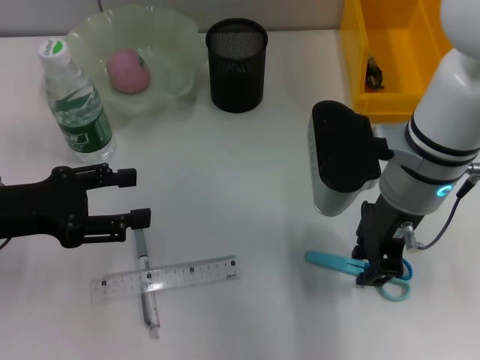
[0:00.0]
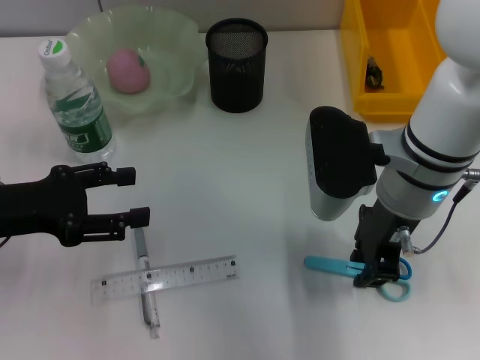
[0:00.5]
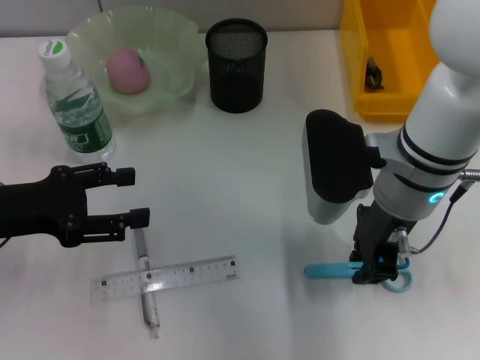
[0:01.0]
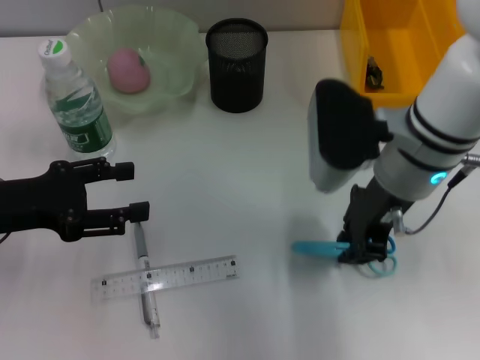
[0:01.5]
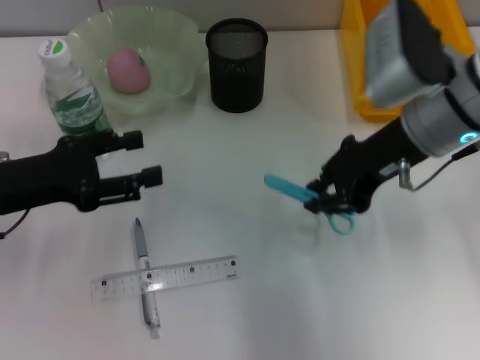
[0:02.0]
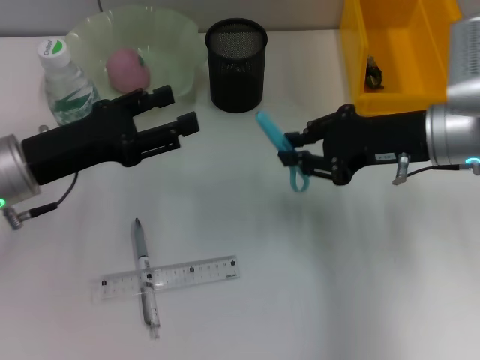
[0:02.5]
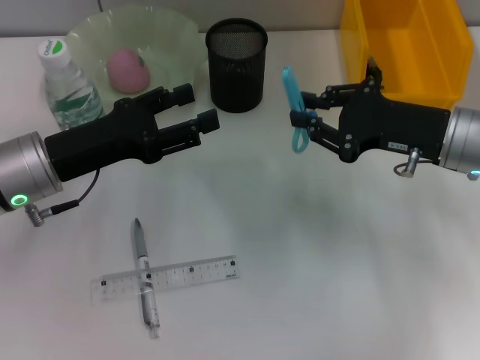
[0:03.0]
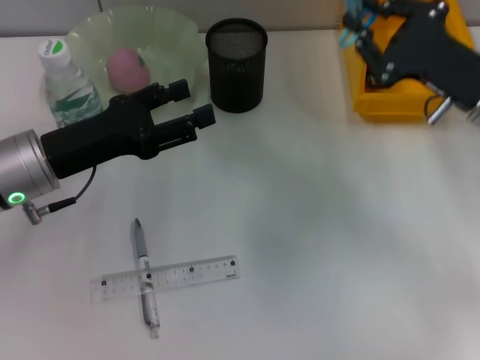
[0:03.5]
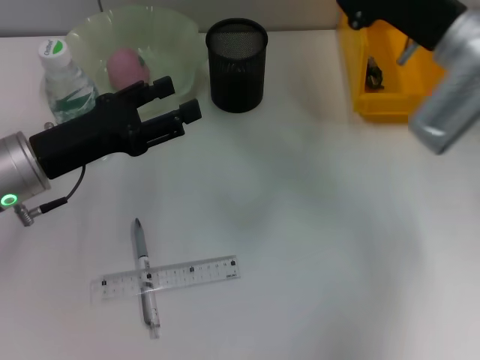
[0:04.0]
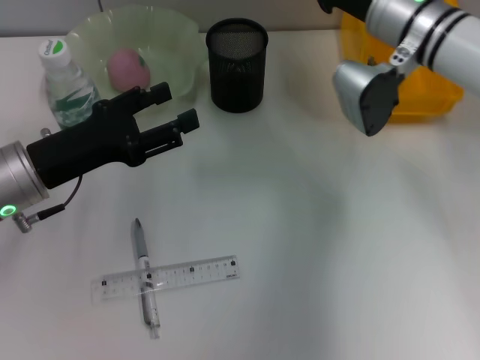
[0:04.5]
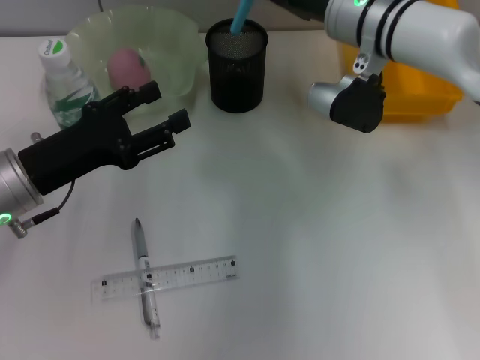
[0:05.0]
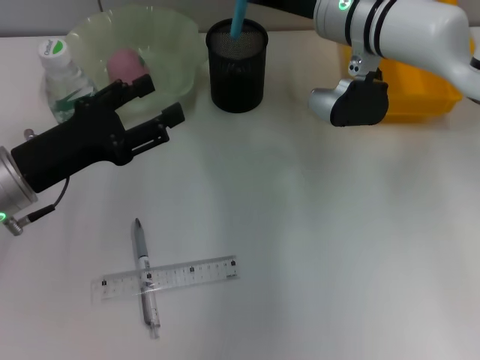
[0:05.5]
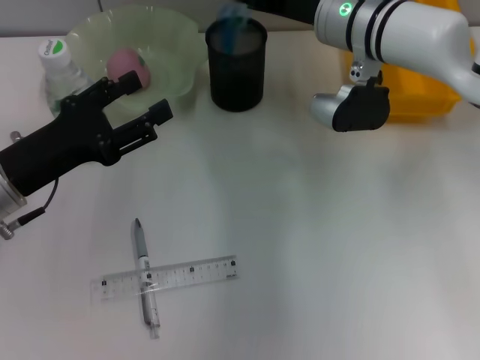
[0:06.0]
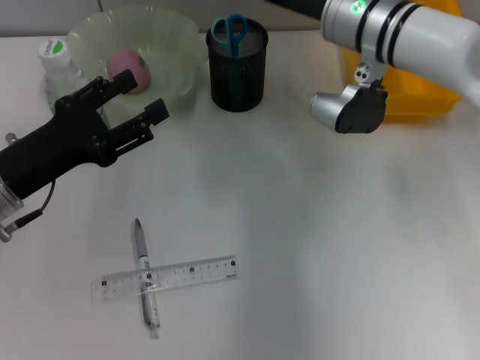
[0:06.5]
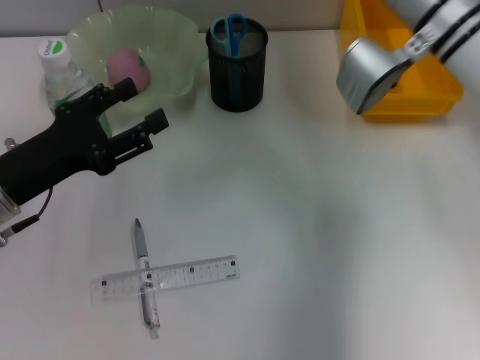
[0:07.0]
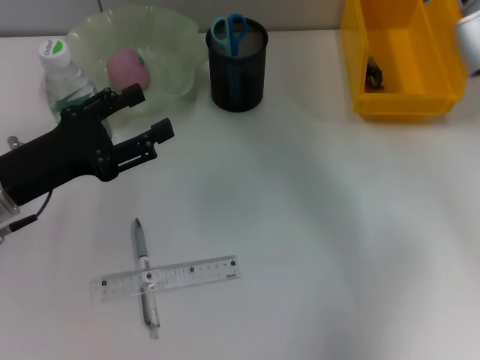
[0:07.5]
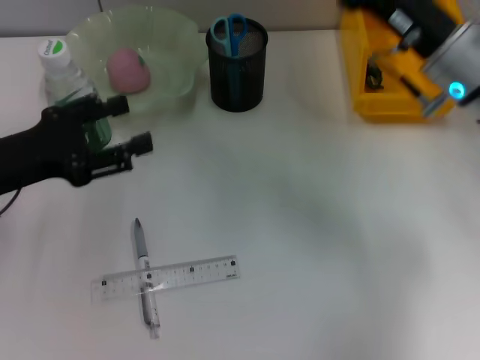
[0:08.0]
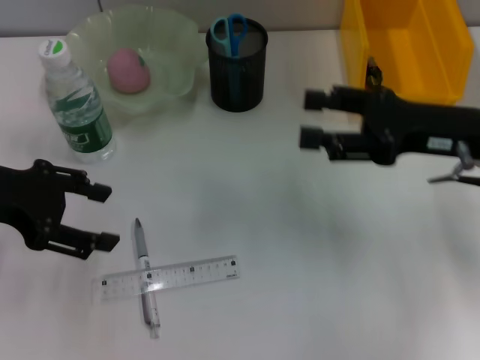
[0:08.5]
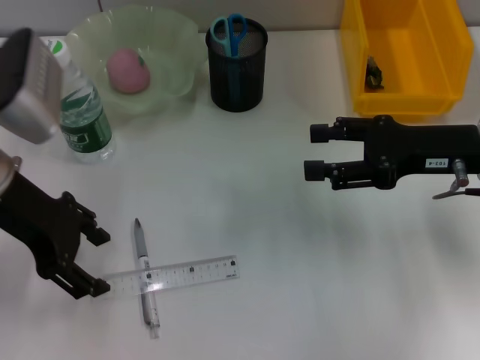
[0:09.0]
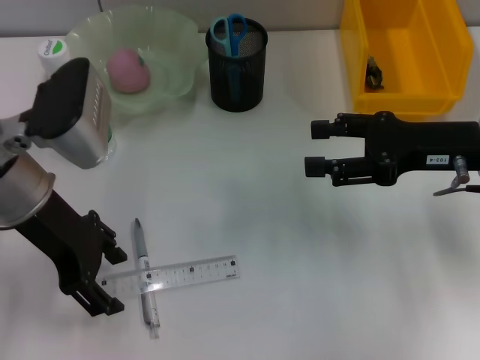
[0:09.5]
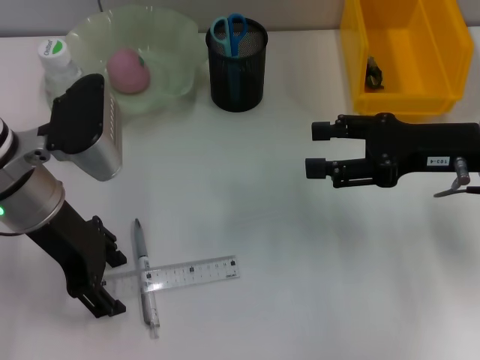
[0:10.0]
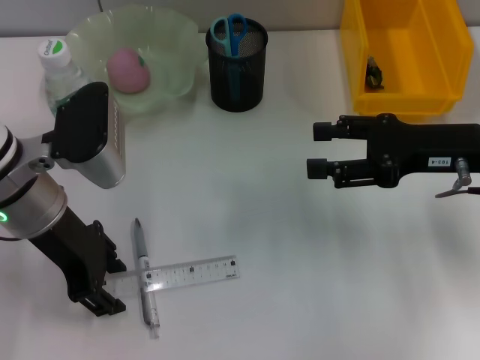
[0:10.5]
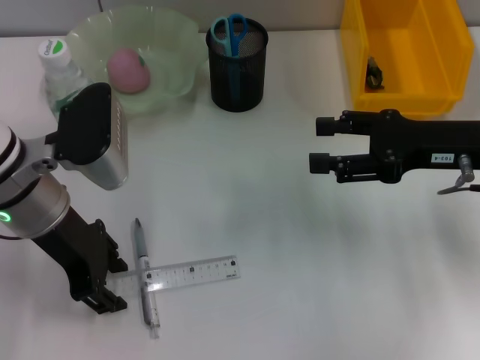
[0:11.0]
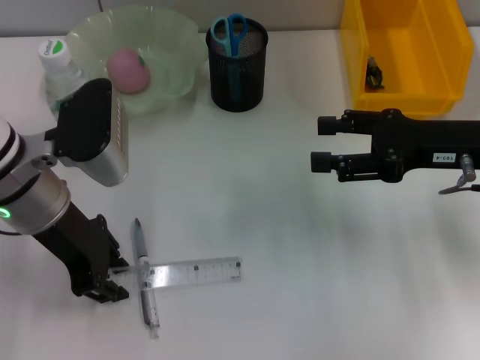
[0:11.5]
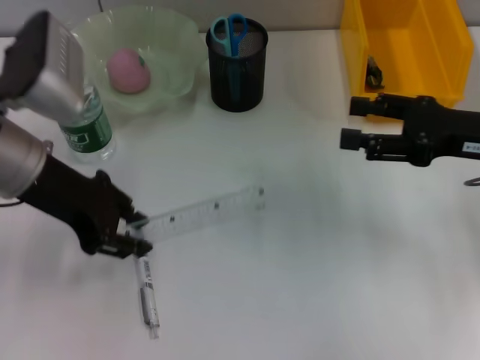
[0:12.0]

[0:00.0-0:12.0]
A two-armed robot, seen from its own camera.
Step, 1.5 to 6.0 s: Place the blue scissors into the pen holder with the right hand.
Step, 6.5 to 11.5 s: Grab the ruler with the left hand.
0.0 to 2.0 s: The right gripper ends up some 5 cm from where it was.
2.0 to 4.0 s: The right gripper shifts by about 5 cm. The left gripper ends up roughly 5 cm from where it was.
4.0 to 6.0 s: The right gripper is displaced to the left and forward by roughly 10 cm.
6.0 to 8.0 s: The right gripper heads backward and to the right, covering approximately 10 cm, and opens its fingers.
8.0 to 10.0 s: The left gripper heads to the right, covering approximately 10 cm. The right gripper shifts some 5 cm to the right.
10.0 to 12.0 s: The left gripper closes its fingers.

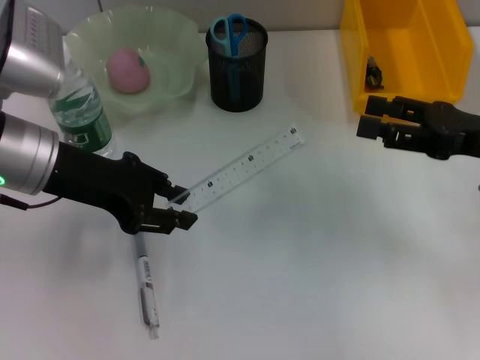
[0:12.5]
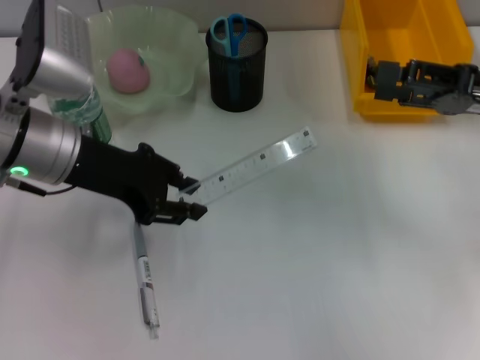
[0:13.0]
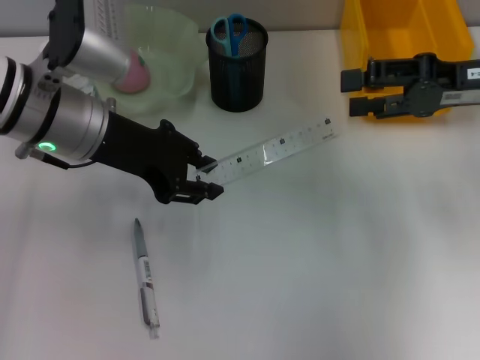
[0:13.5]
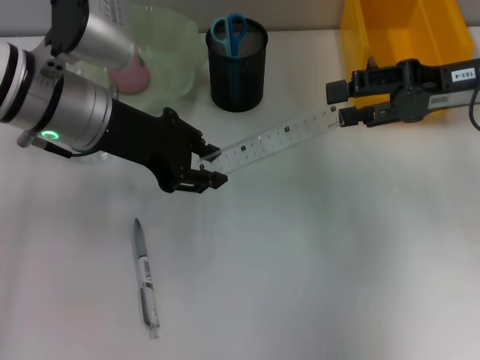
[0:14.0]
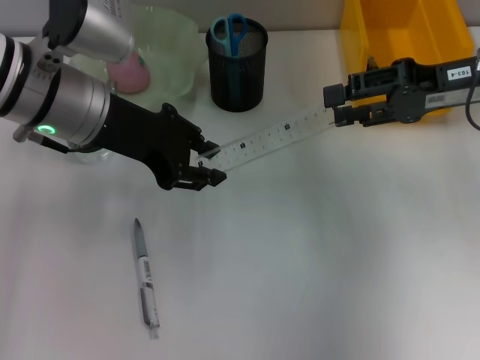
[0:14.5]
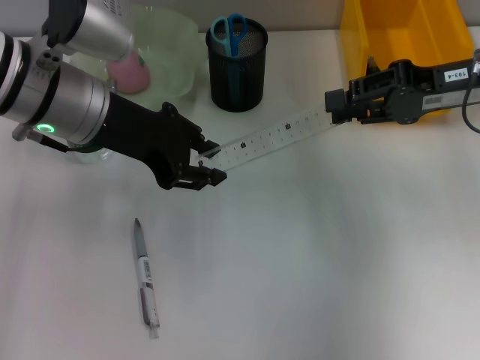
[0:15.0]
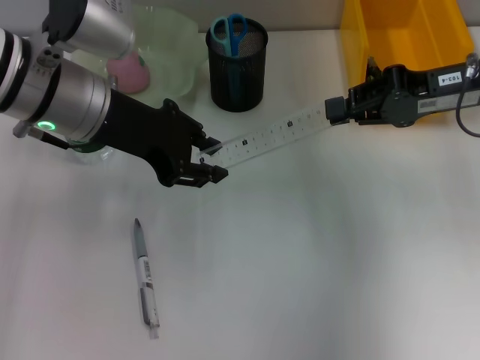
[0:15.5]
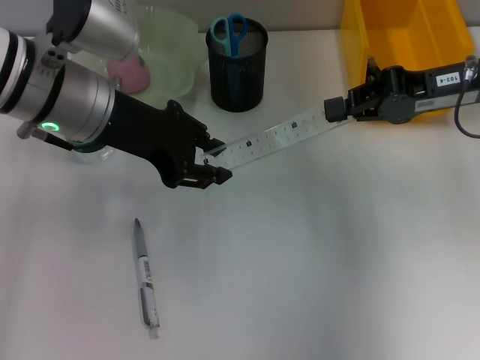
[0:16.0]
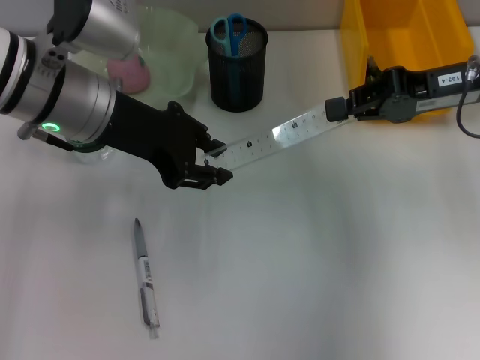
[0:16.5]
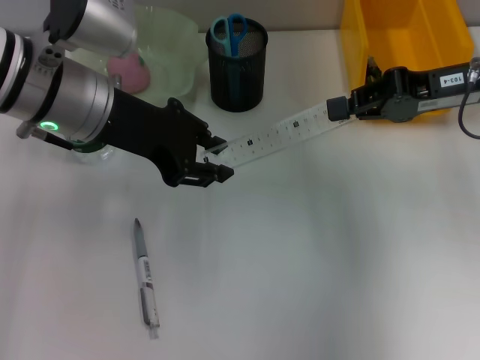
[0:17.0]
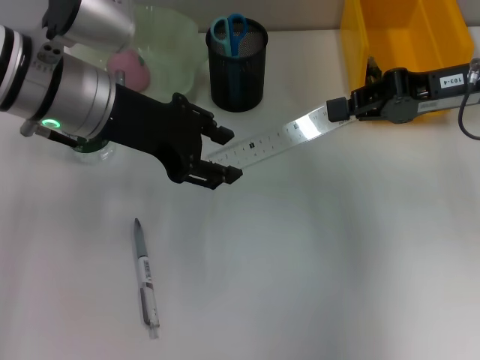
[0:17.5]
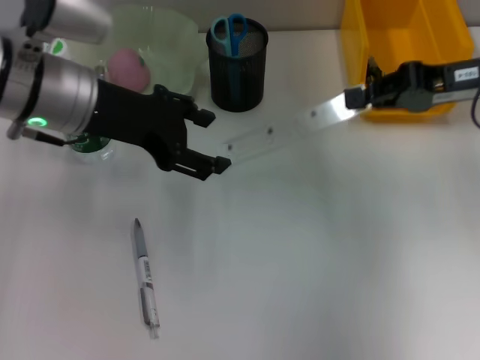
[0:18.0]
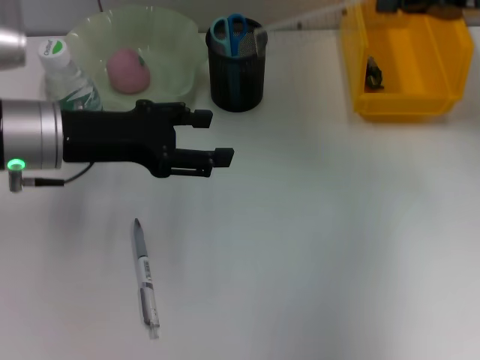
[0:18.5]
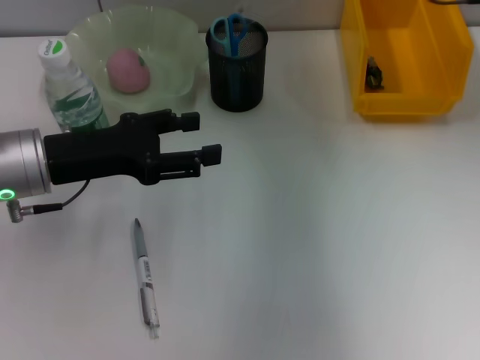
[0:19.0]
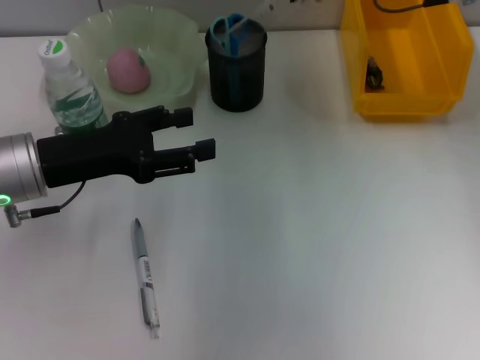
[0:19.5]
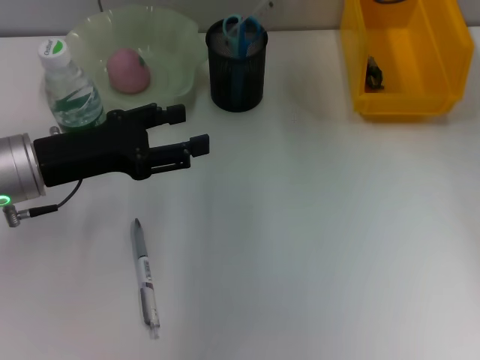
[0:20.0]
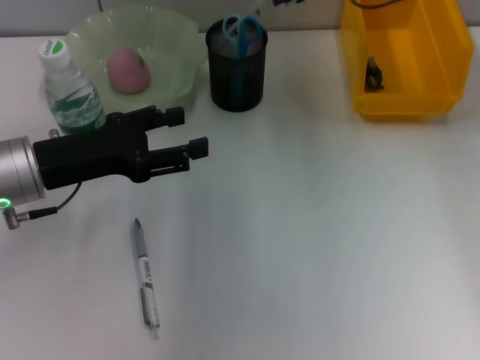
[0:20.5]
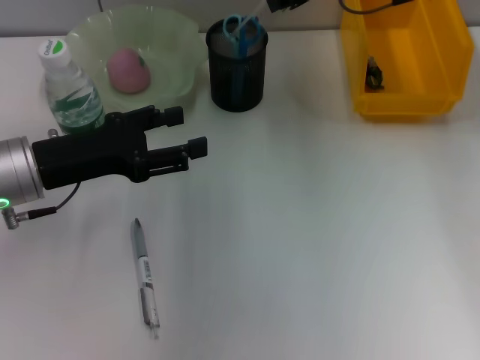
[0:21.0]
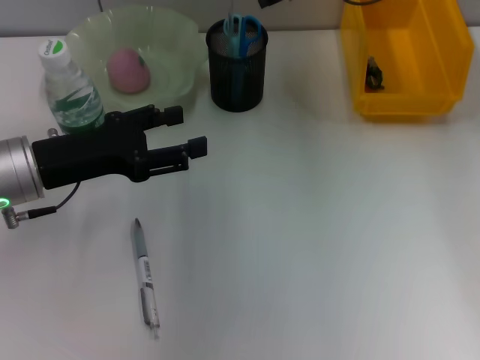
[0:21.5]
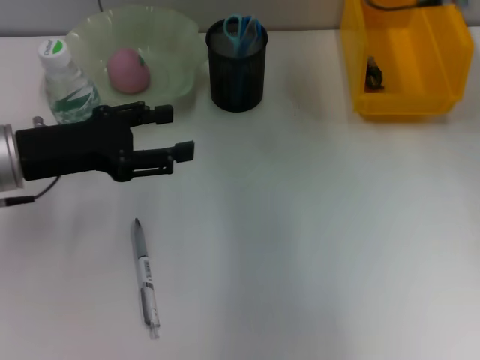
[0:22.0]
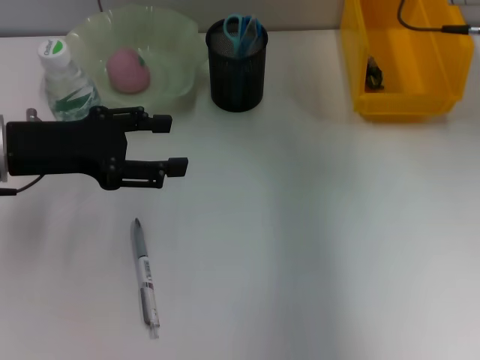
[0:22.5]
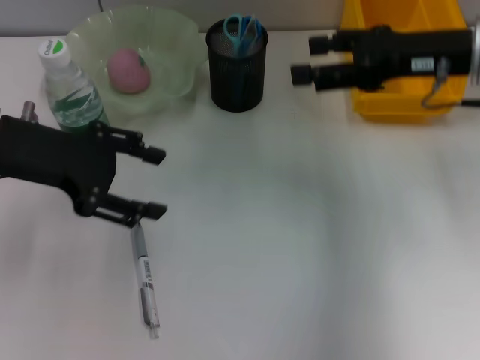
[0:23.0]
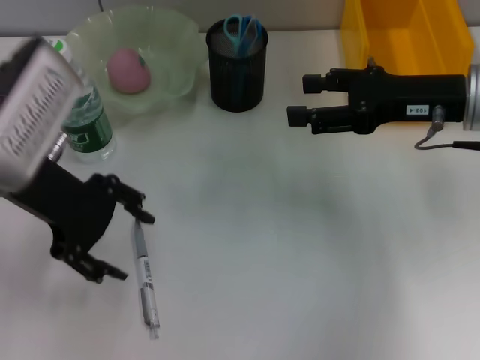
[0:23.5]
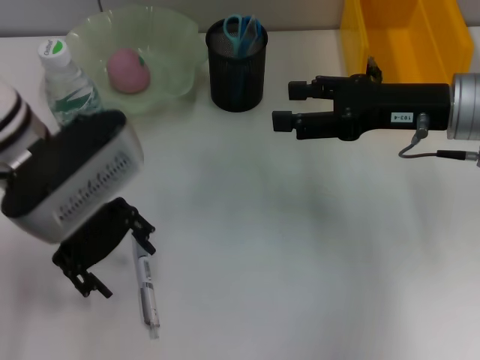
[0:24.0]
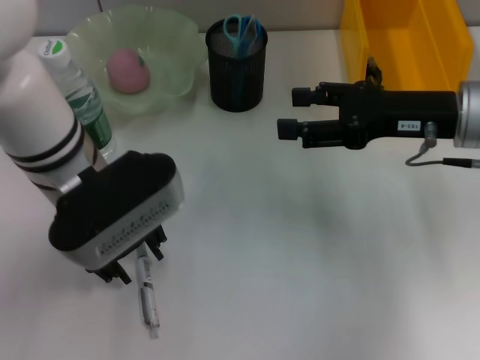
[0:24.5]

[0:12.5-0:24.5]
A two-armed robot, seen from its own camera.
Step, 12.5 to 16.0 s: Pass the ruler from the left hand to the right hand.
Step, 16.5 to 21.5 s: Place the ruler into the pen holder with the right hand.
12.5 to 14.5 s: The right gripper heads forward and upward, covering approximately 10 cm; the left gripper ends up roughly 5 cm from where it was.
14.5 to 16.5 s: The right gripper closes.
16.5 to 18.5 s: The left gripper moves to the left, some 5 cm, and opens up. The right gripper changes place by about 5 cm.
18.5 to 20.5 s: The right gripper heads to the left and forward, covering about 15 cm, while the left gripper shifts by roughly 5 cm.
20.5 to 22.5 s: The right gripper shifts approximately 5 cm to the right, and opens its fingers.
22.5 to 24.5 s: The left gripper moves to the right, roughly 10 cm. The right gripper is displaced backward and downward by approximately 10 cm.

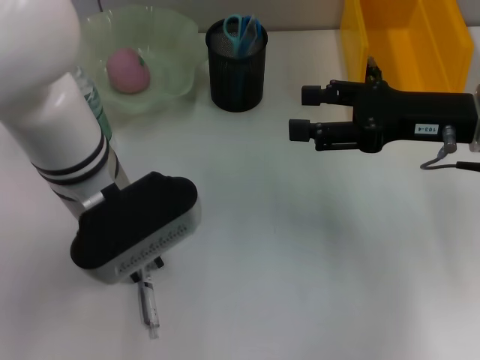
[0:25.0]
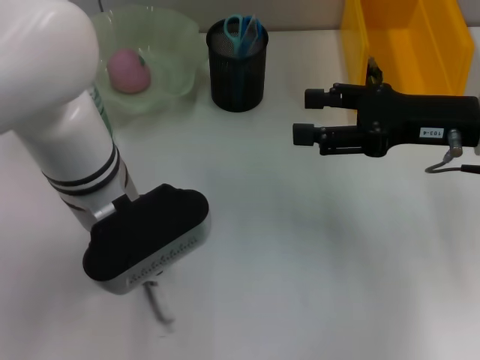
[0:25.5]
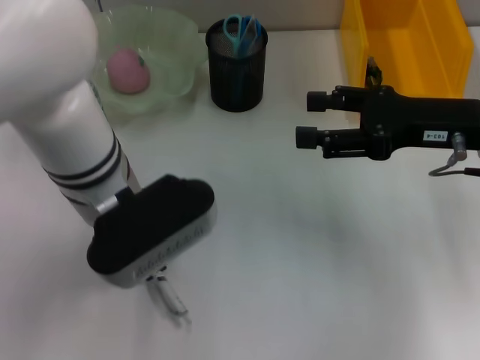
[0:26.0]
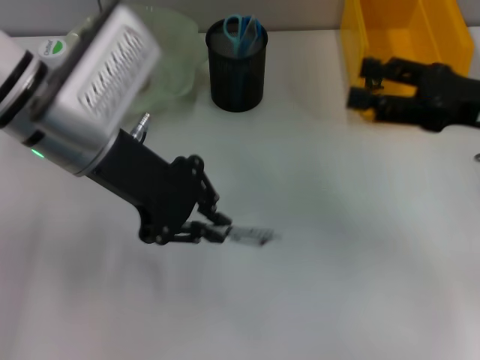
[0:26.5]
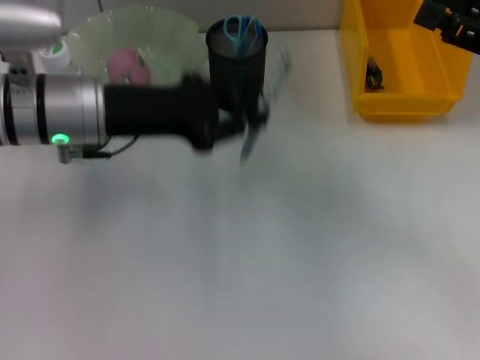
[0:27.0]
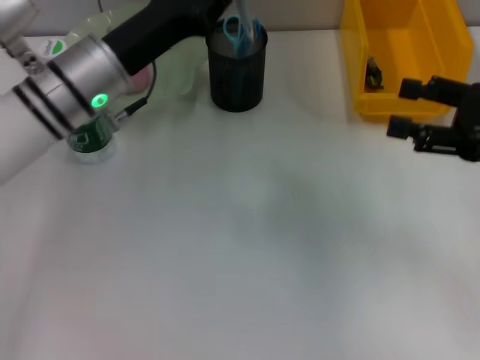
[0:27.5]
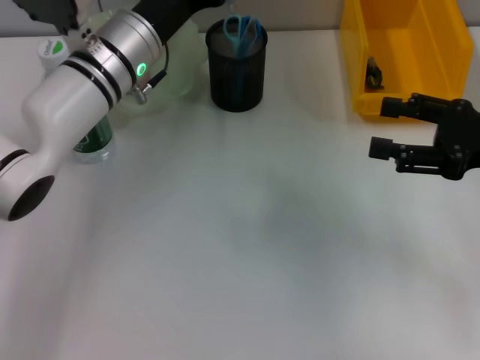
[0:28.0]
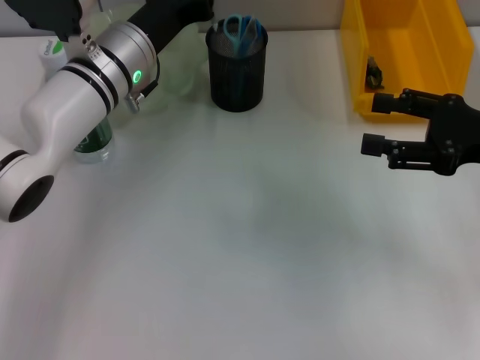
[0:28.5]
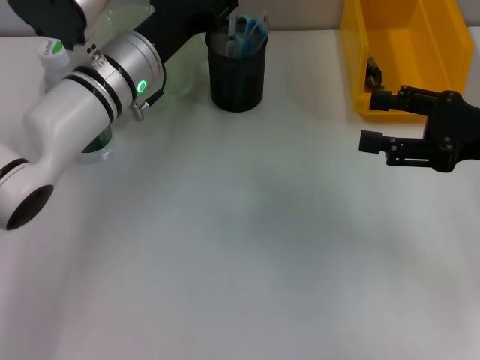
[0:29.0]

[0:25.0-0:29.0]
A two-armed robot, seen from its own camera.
Step, 26.0 to 28.5 s: Place the gray spring-action pen into the pen holder with the left hand.
25.0 to 27.0 s: The left gripper moves to the left, about 5 cm, and closes its fingers. Meanwhile the right gripper goes roughly 10 cm to the right.
27.0 to 29.0 s: The left gripper shifts about 5 cm forward.
